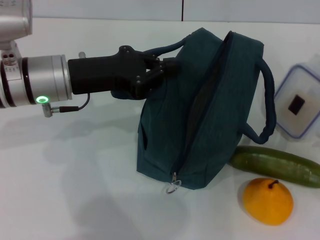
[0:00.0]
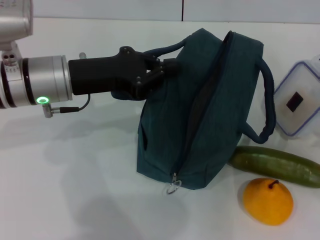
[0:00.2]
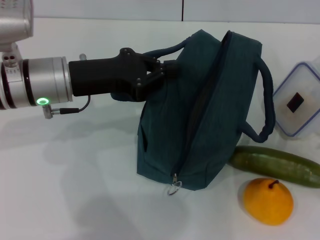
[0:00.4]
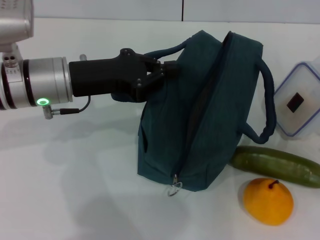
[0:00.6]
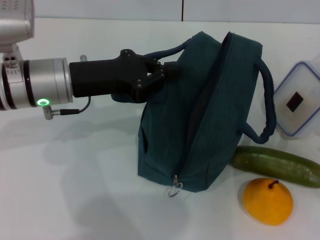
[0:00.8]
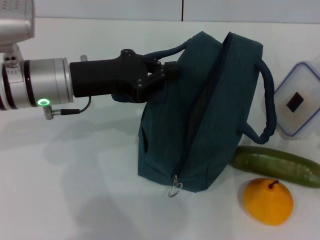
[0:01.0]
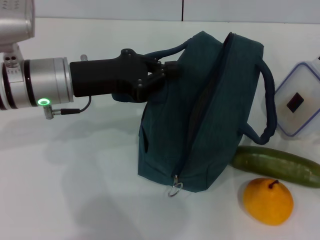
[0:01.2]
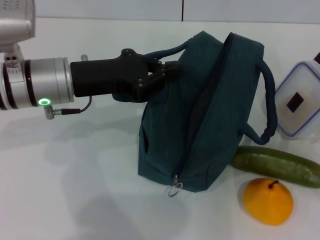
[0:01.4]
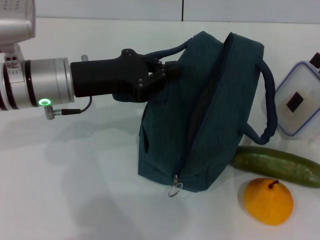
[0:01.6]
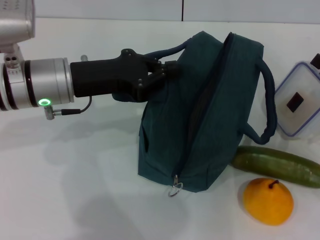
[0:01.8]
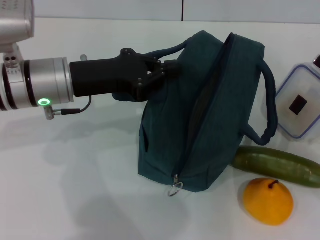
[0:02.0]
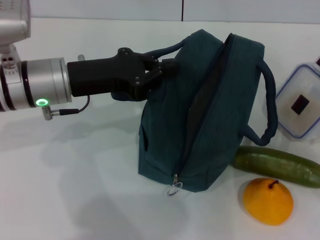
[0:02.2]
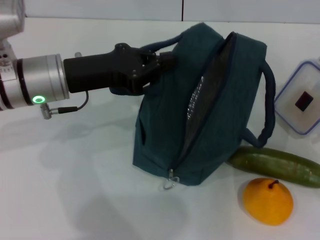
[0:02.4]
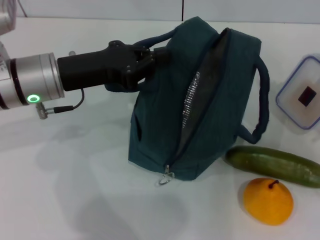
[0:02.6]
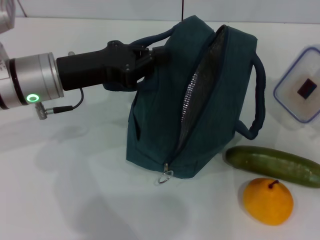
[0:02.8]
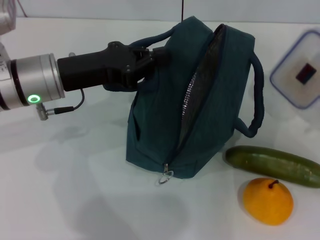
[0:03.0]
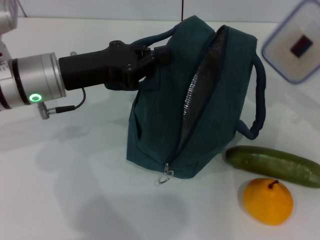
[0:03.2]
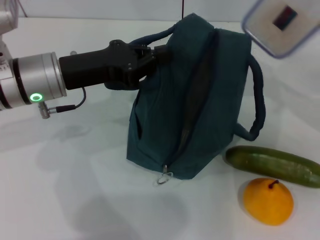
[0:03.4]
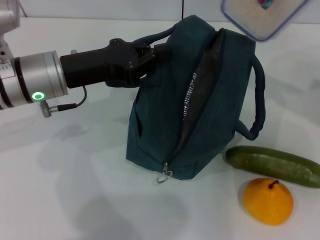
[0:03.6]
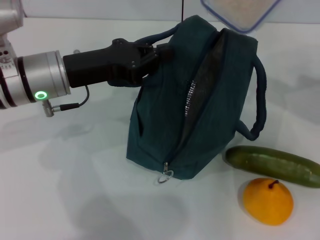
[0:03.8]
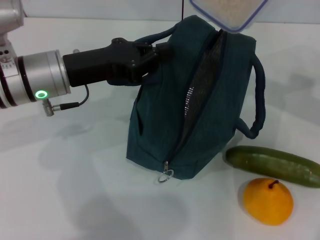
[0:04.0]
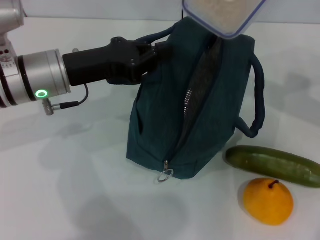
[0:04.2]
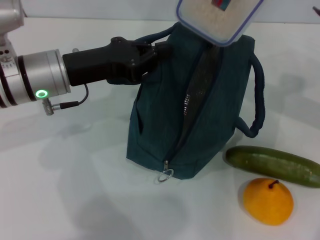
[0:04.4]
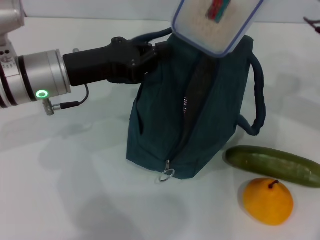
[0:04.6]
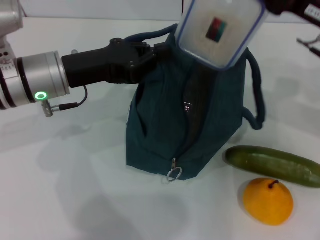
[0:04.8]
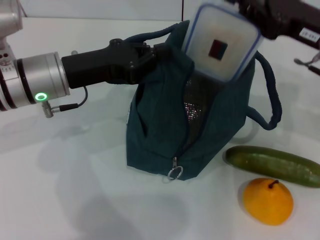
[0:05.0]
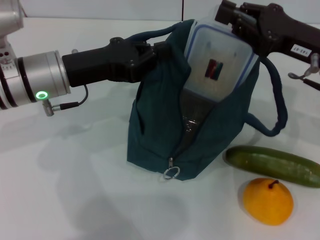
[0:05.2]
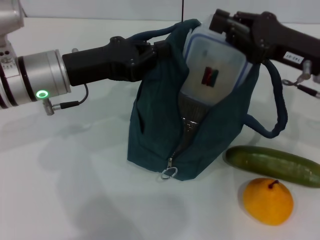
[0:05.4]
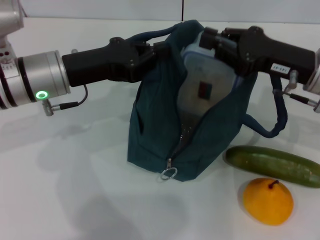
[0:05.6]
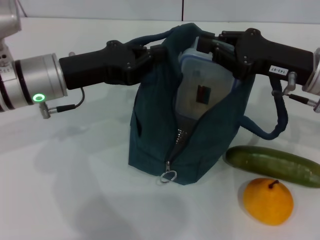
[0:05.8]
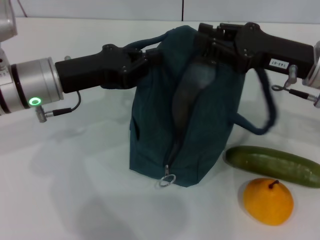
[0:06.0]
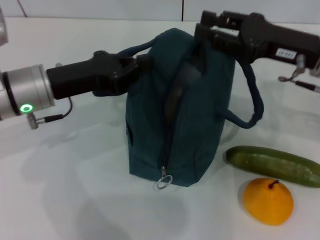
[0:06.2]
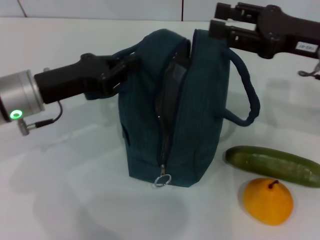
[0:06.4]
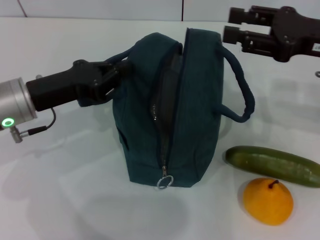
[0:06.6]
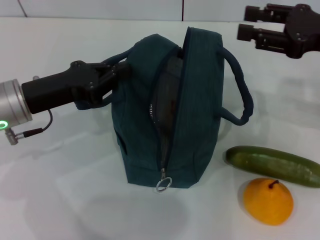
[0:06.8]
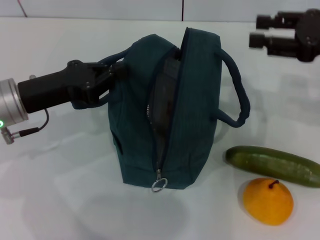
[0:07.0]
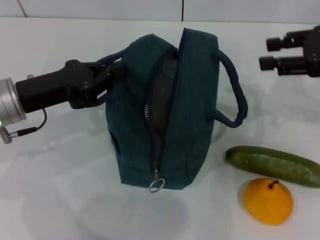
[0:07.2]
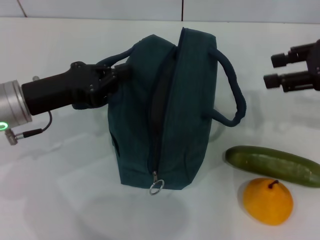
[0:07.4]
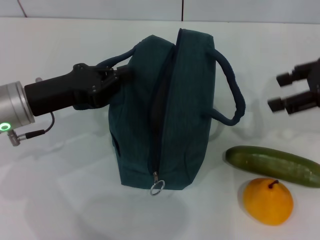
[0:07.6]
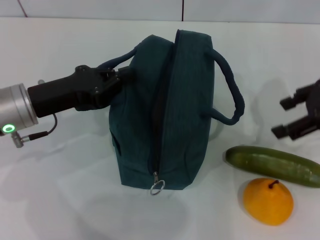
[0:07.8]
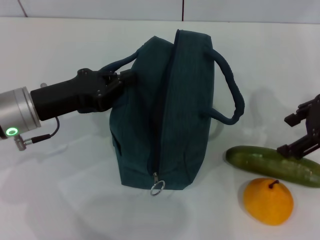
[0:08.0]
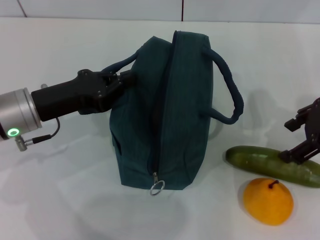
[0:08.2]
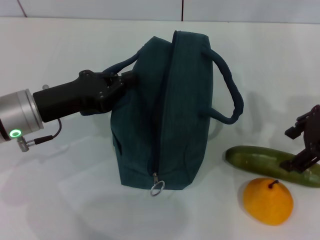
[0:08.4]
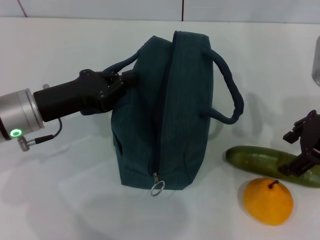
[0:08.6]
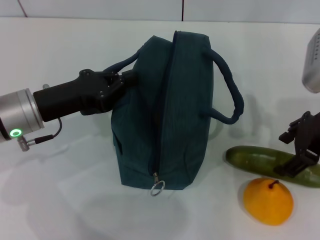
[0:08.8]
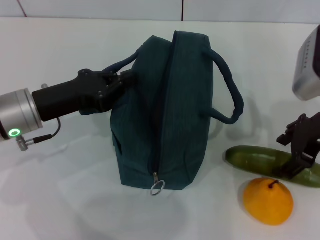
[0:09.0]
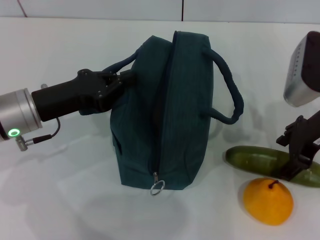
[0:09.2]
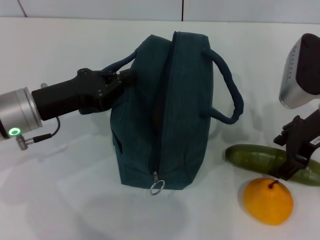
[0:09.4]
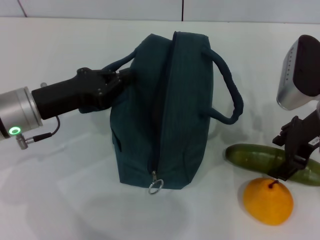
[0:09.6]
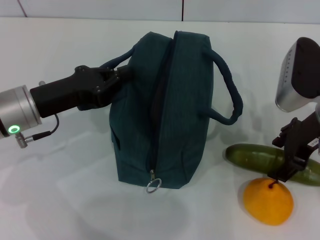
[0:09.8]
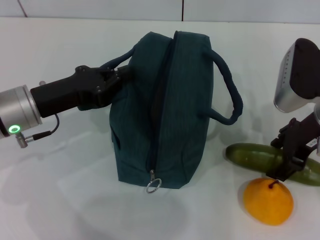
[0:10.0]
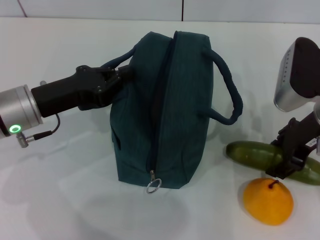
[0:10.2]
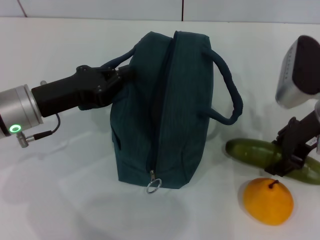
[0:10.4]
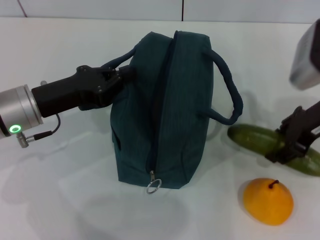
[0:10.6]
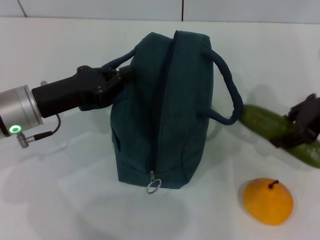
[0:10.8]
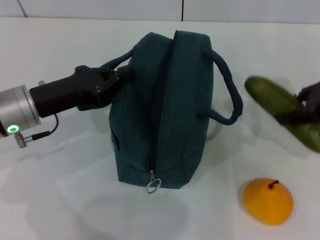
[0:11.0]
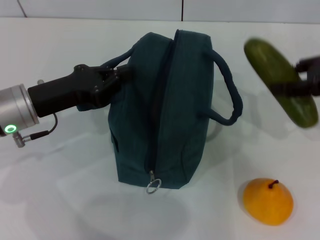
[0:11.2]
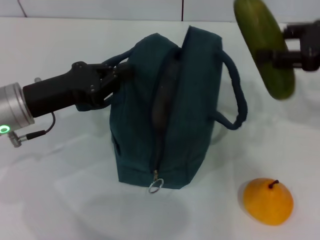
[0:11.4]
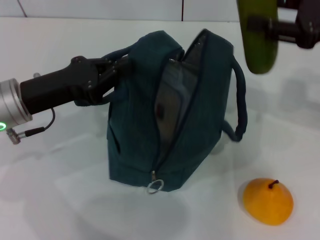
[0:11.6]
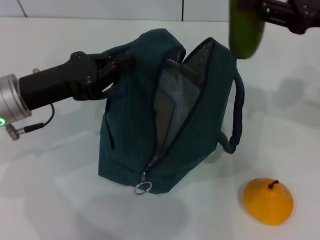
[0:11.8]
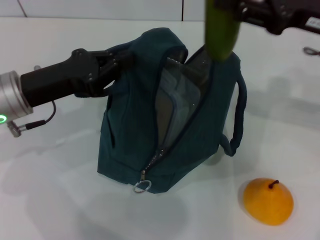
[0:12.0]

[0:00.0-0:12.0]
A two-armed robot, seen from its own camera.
Step, 0:02.2 to 0:06.0: Place the lunch box into the lunch bag with your right hand.
Step, 0:06.2 to 0:10.0: Pick up the cucumber with your right hand.
0:00.0 to 0:01.6: The grippers stay close to where they were, moving slightly.
0:01.6 to 0:03.0: The right gripper closes up.
0:03.0 to 0:04.4: The right gripper goes roughly 15 cm to the left, upward and forward.
0:04.4 to 0:06.0: The right gripper moves downward, roughly 5 cm.
0:06.0 to 0:07.6: The right gripper heads to the right and upward, covering approximately 10 cm, and opens.
0:07.6 to 0:09.0: The right gripper is displaced to the left and downward by roughly 10 cm.
0:09.0 to 0:10.4: The grippers make only small movements.
0:10.4 to 0:12.0: The right gripper moves approximately 10 cm to the right and comes back.

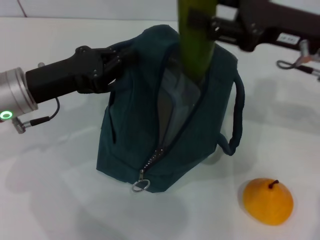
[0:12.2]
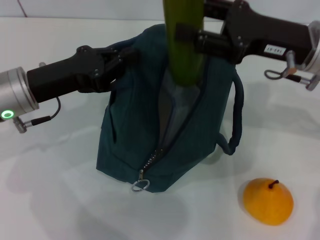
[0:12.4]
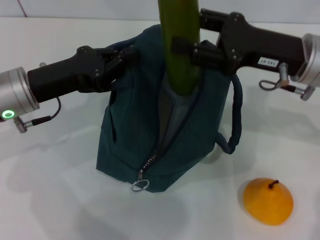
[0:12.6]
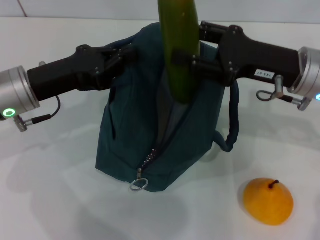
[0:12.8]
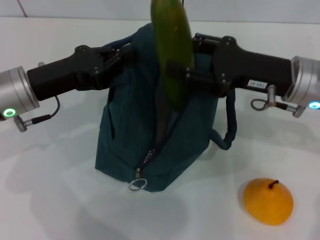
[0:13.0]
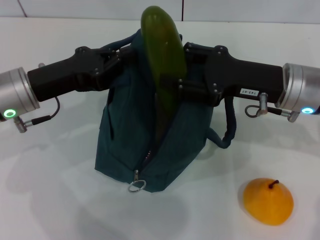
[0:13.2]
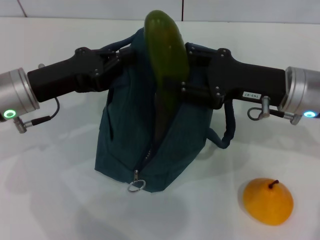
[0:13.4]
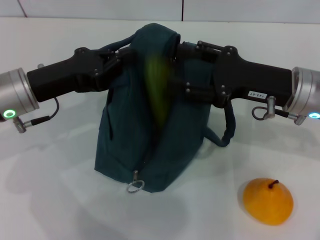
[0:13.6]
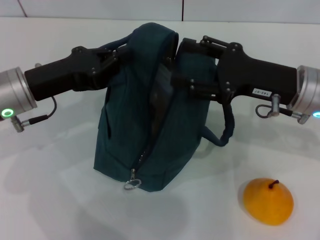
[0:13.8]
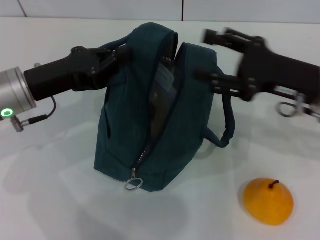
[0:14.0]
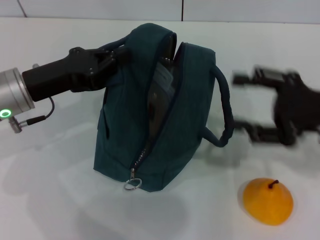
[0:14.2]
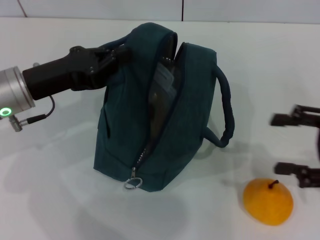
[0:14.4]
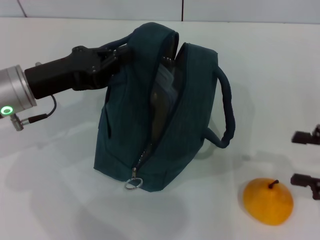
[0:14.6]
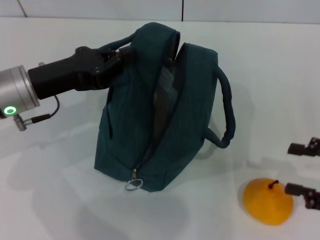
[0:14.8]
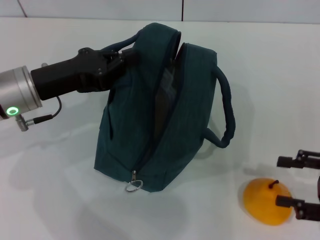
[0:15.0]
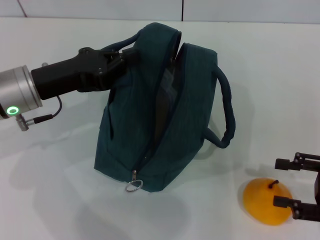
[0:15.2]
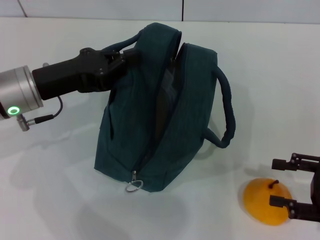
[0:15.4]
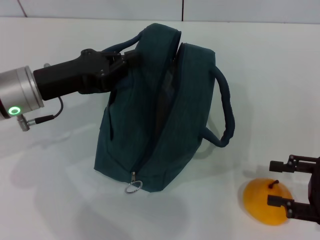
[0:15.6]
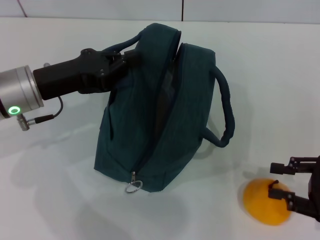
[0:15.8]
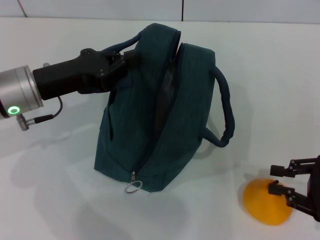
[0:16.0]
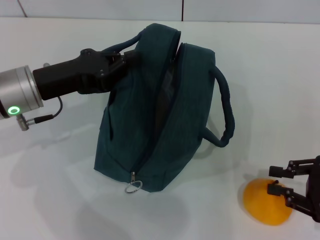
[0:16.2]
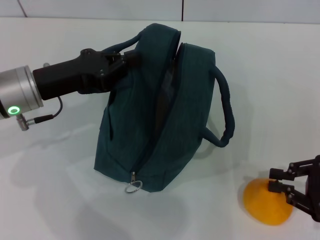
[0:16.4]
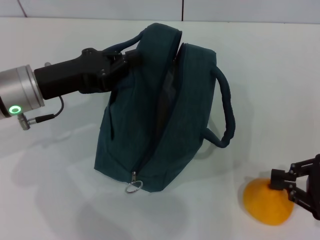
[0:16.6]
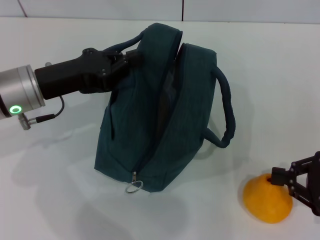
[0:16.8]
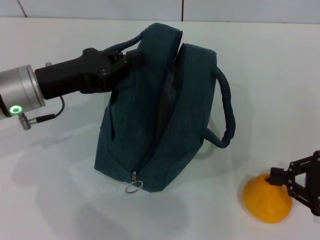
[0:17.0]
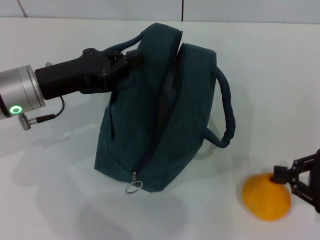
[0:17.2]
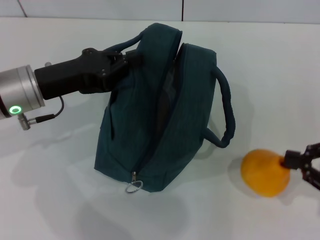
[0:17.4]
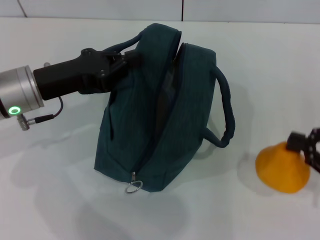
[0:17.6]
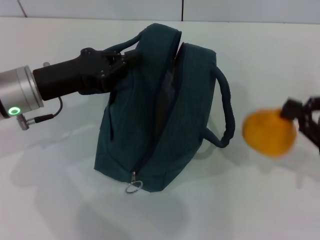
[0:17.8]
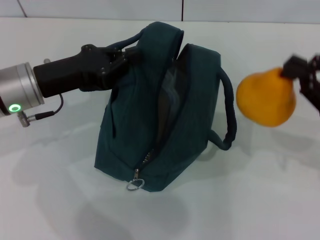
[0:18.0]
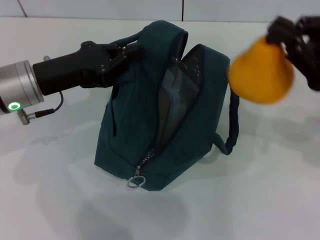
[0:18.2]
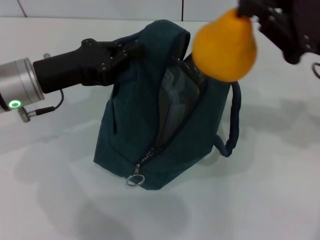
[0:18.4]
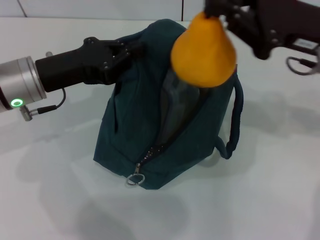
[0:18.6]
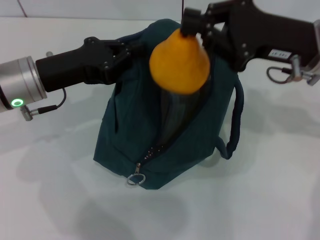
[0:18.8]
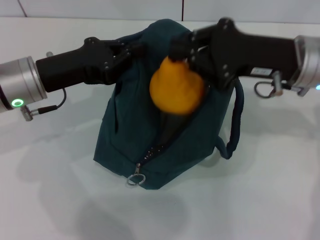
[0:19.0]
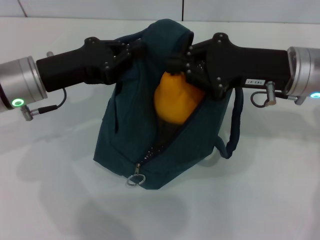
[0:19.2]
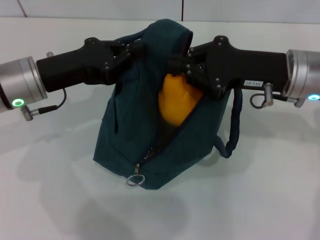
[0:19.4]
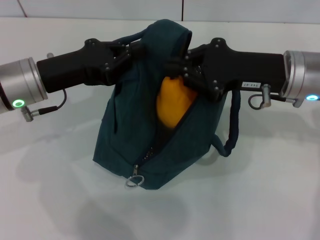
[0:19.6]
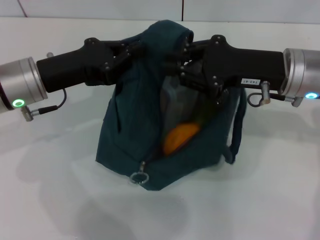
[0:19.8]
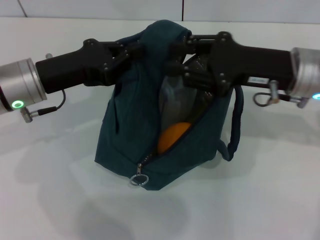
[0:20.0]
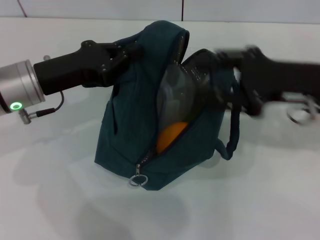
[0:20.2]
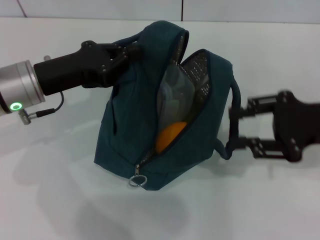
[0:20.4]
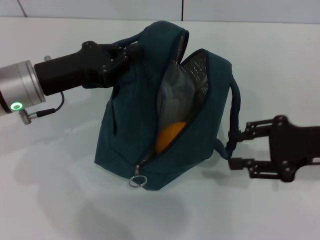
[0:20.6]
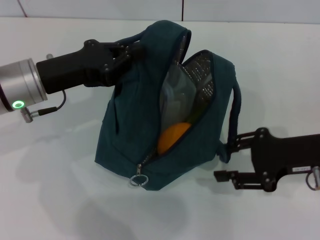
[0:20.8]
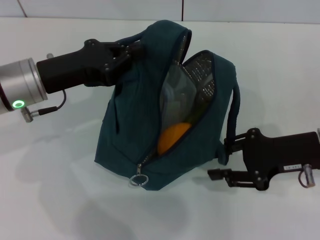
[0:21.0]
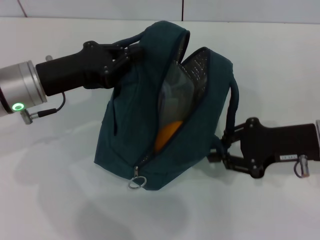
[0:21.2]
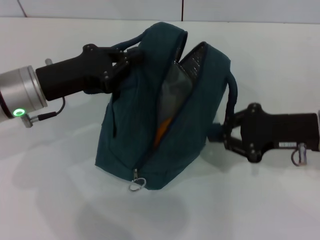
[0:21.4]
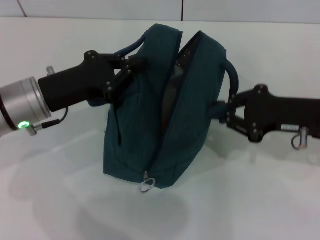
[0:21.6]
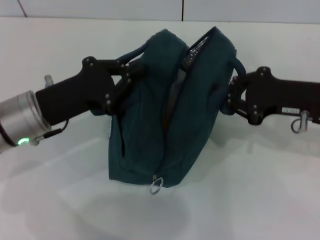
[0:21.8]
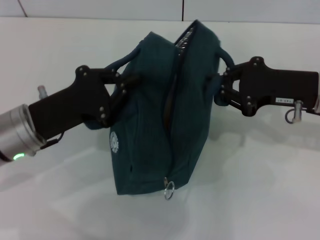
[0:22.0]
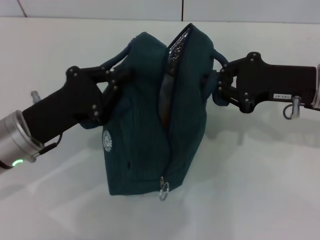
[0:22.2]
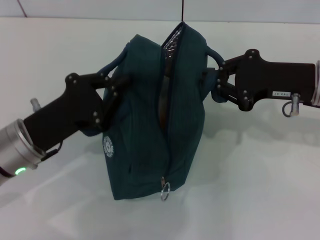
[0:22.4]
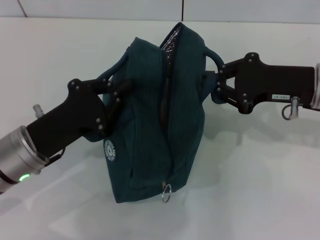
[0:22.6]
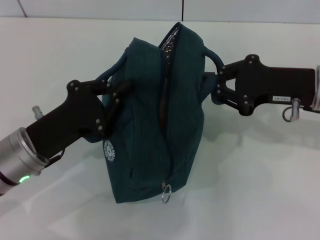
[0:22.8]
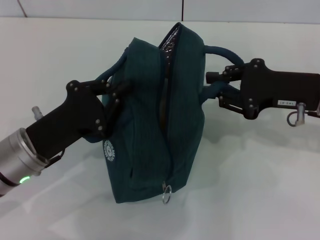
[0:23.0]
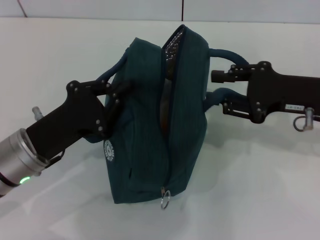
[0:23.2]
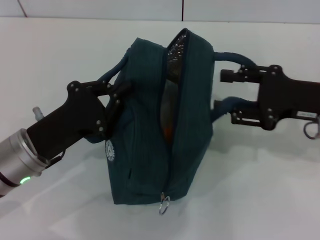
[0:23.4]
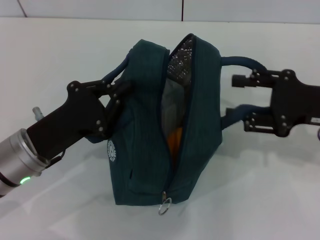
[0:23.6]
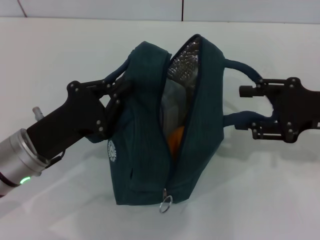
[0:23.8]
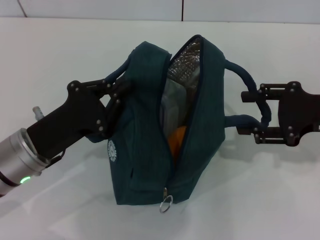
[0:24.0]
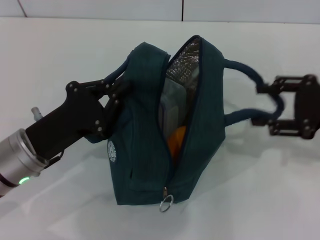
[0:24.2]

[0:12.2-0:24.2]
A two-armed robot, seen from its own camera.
Step, 0:13.8 to 0:16.8: Grab the pear with your right hand.
Step, 0:20.0 to 0:23.4: Hold the lunch bag with your right hand.
0:12.2 to 0:13.8: The right gripper moves downward, roughly 5 cm.
0:13.8 to 0:15.2: The right gripper heads to the right, backward and downward, covering approximately 20 cm.
0:15.2 to 0:16.6: The right gripper closes up.
0:16.6 to 0:18.2: The right gripper is displaced upward, forward and to the left by approximately 15 cm.
0:18.2 to 0:19.8: The right gripper goes approximately 10 cm to the left.
0:19.8 to 0:21.2: The right gripper travels to the right by approximately 5 cm.
0:21.2 to 0:22.6: The right gripper moves approximately 5 cm. Meanwhile the left gripper heads backward and downward, covering approximately 10 cm.
0:22.6 to 0:24.2: The right gripper moves to the right, approximately 5 cm, and opens up.
